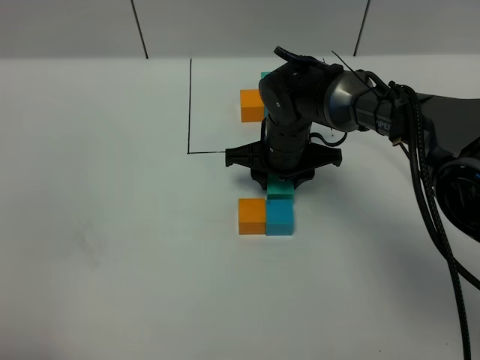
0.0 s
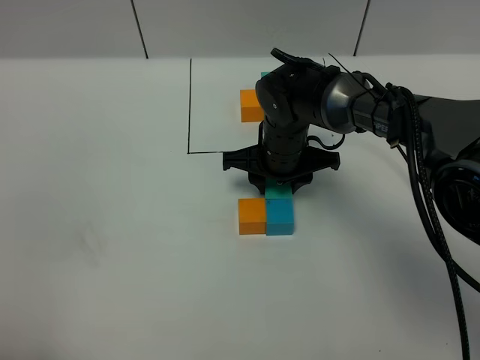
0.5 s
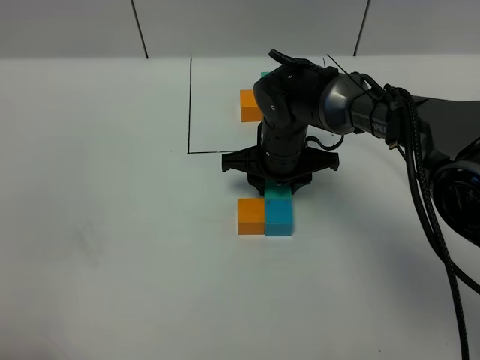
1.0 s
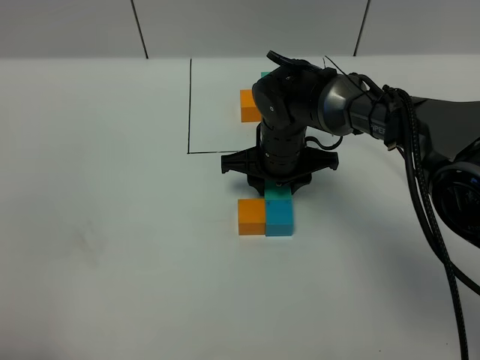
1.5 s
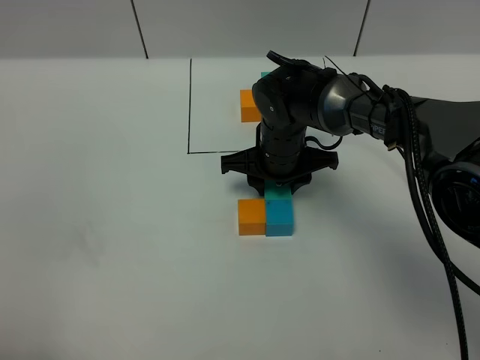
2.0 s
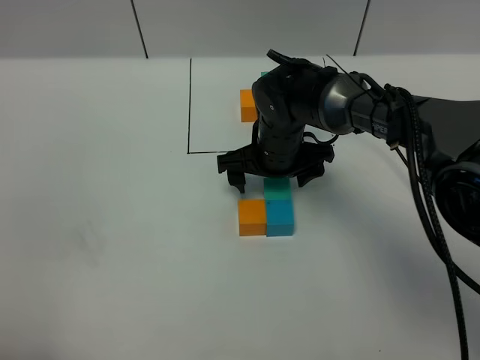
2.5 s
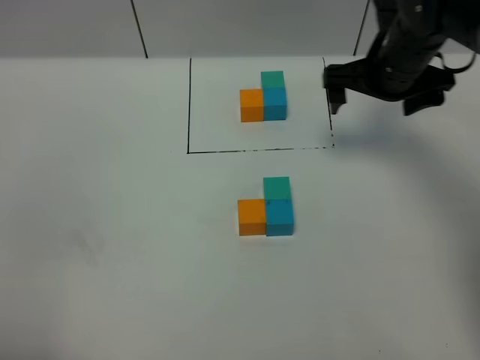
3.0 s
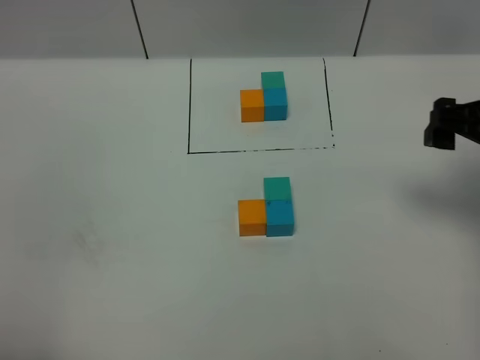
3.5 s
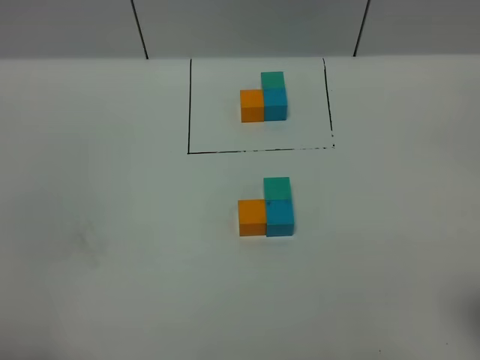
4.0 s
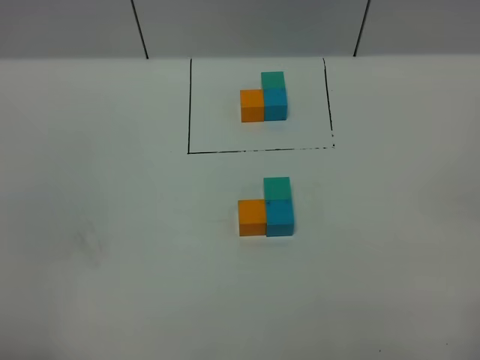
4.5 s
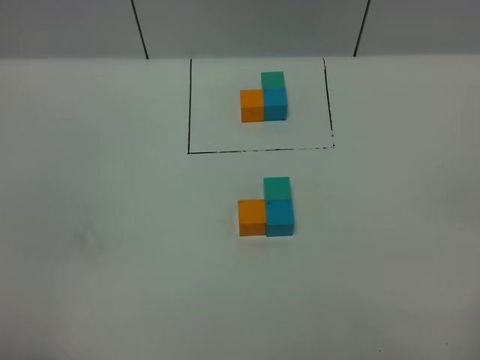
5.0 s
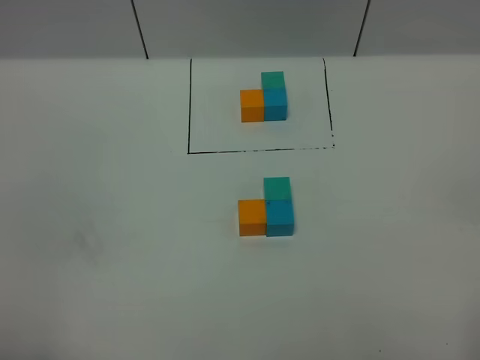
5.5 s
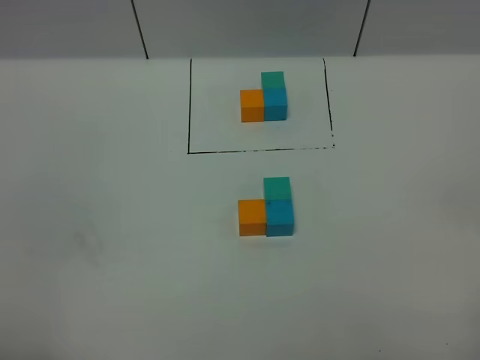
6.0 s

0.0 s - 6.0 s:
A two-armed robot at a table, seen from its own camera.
Task of the whole recording: According to the building block template in front, assemble the scattered blocks together.
Step, 0.0 s - 2.0 s: Put the green build block on the front of the blue build block.
0.0 s - 2.0 s: The two grippers keep their place.
2.0 s - 4.0 s: The right gripper travels backward, to the right and upward by roughly 40 cm, and opens.
